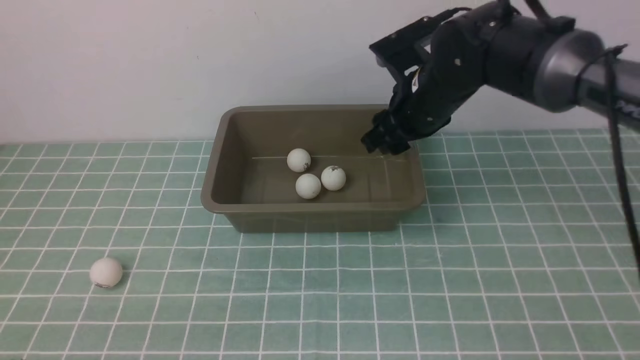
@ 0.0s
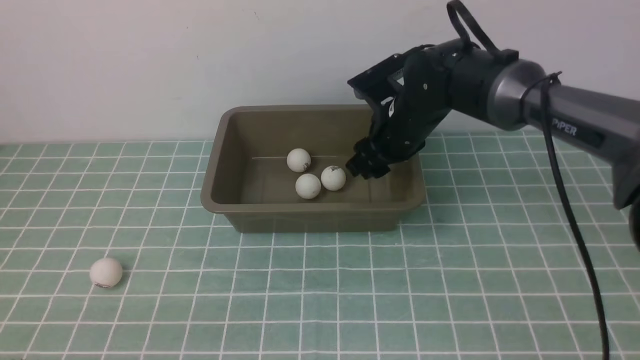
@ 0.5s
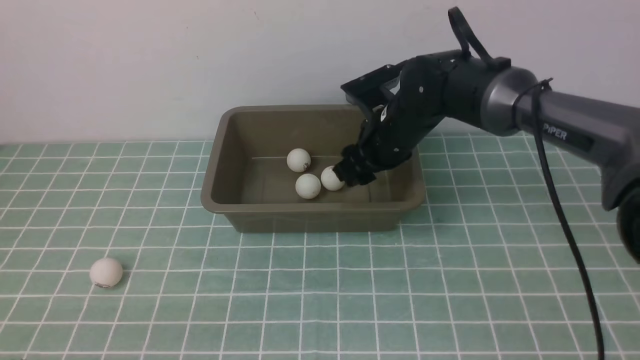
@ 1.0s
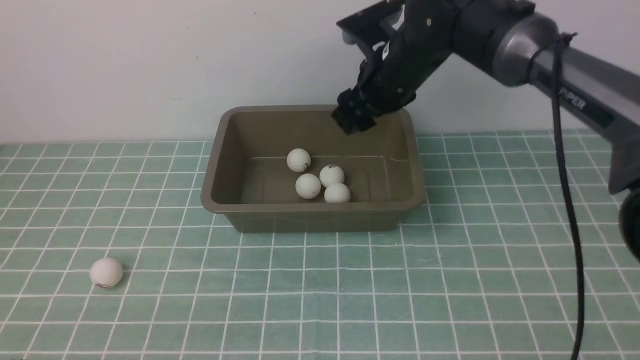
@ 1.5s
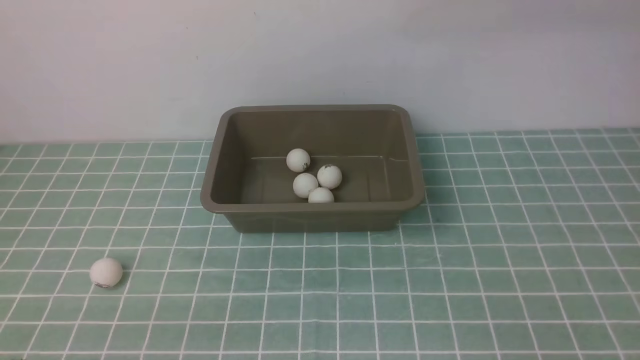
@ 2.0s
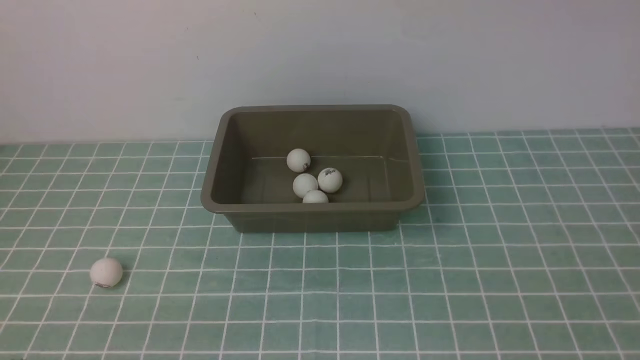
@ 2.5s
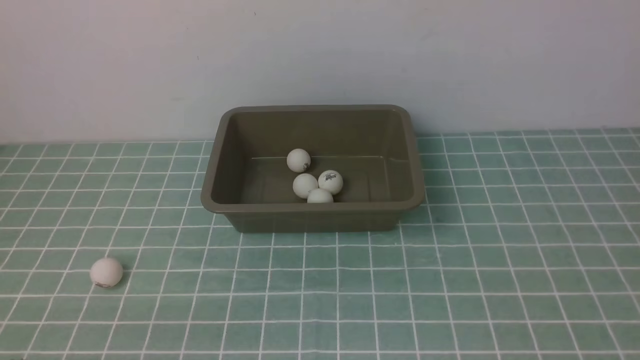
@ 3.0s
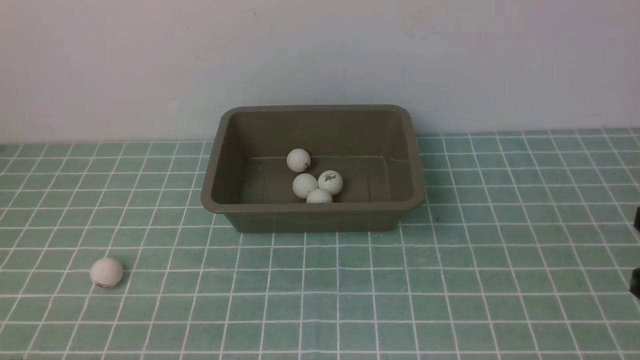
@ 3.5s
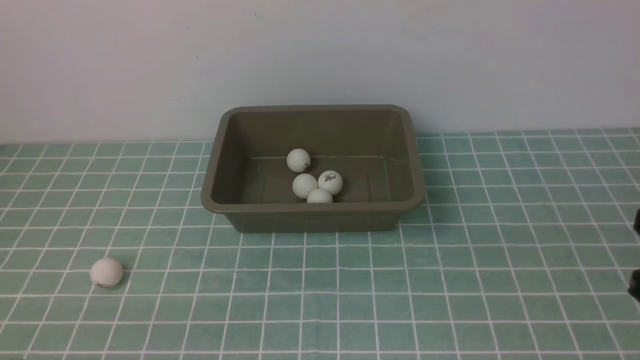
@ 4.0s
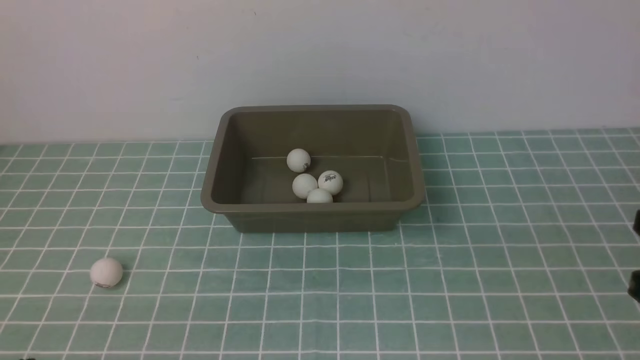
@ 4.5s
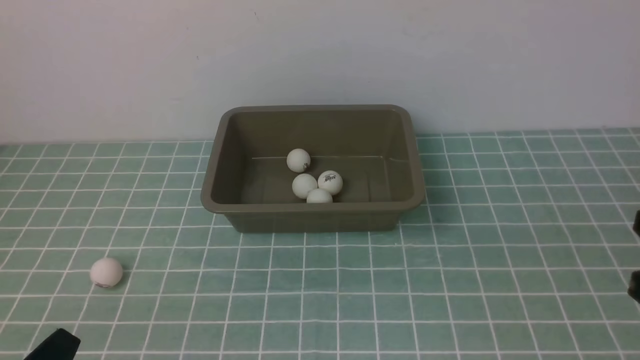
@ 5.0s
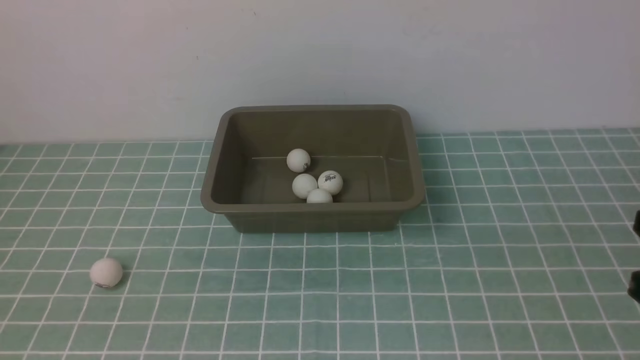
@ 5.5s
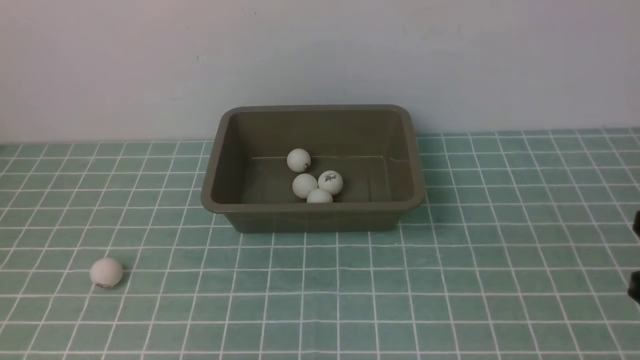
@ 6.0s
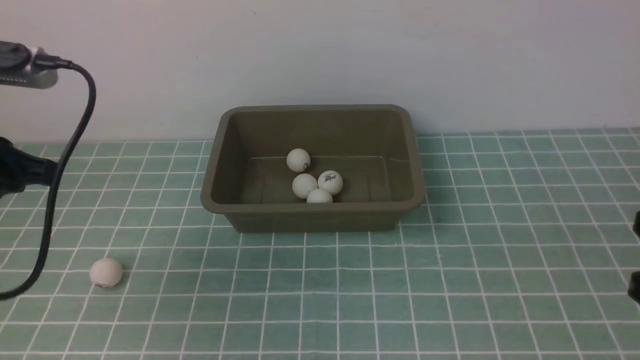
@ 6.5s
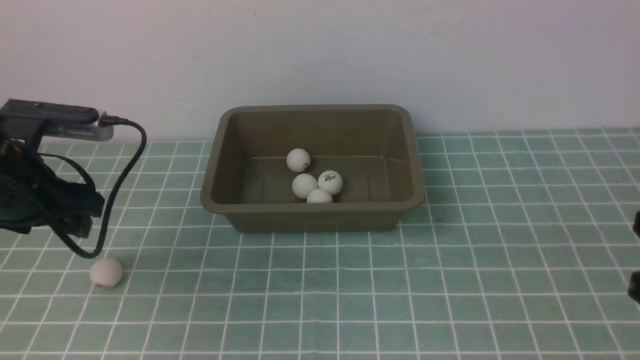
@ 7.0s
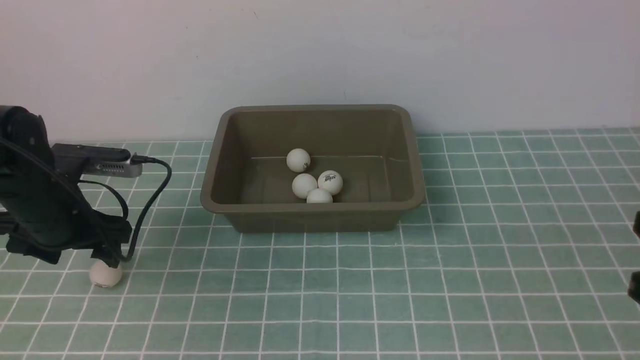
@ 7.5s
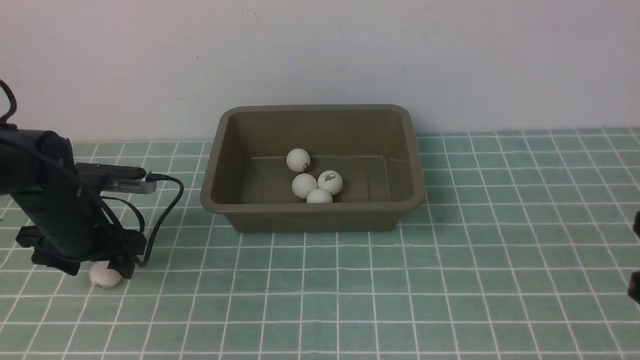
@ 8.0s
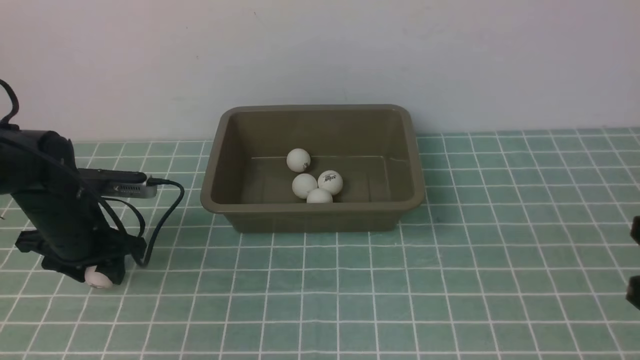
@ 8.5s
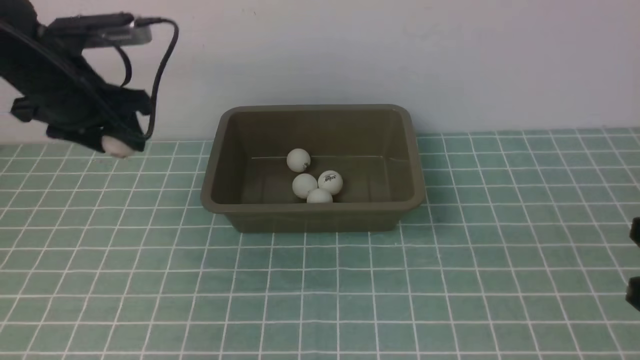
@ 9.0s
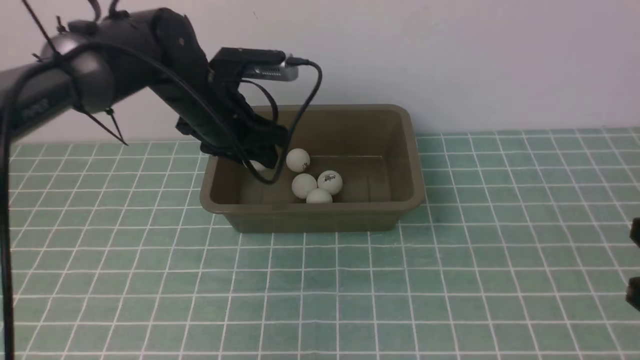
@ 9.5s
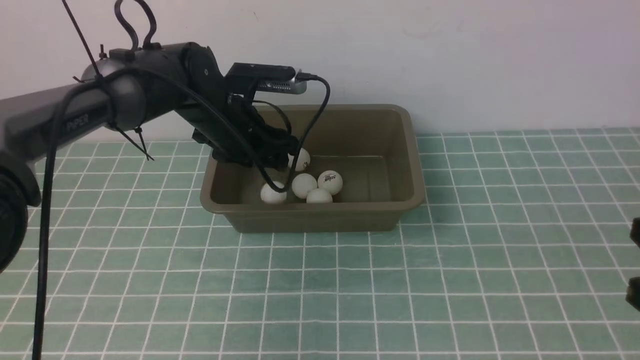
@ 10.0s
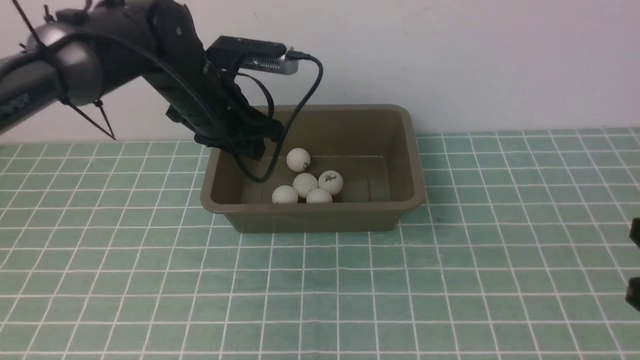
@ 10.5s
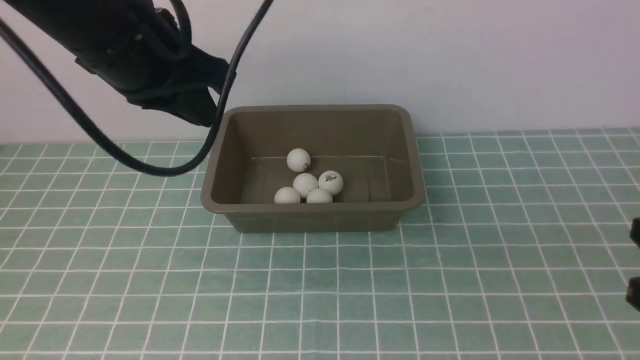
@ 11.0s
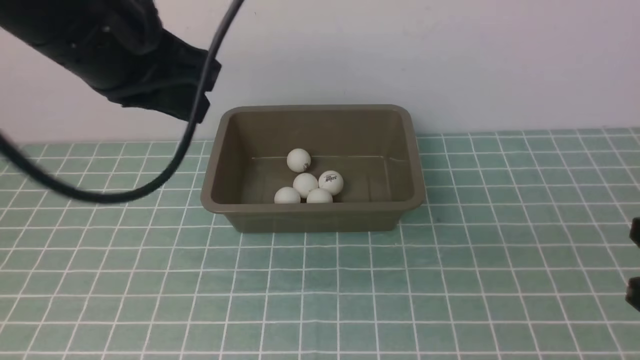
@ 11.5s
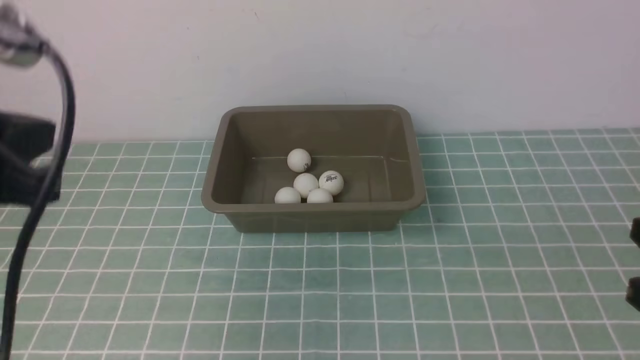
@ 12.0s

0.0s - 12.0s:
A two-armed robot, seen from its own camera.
Step, 0.0s - 1.5s: use the right arm to put the table tennis ball into the box.
Step, 2.0s - 8.5s: use the left arm to clamp the table tennis ball closest to it.
Step, 9.0s - 10.0s: use the left arm to put the table tennis ball into the box.
0.0s - 2.0s: The right gripper heads upward, backward and to the right, covering roughly 40 cm, and closes up.
6.0s - 8.0s: The left gripper goes approximately 25 cm downward and forward, and opens.
8.0s - 10.0s: The left gripper shifts some 20 cm to the right, forward and upward.
10.0s - 12.0s: The left gripper goes about 40 cm backward and to the left, and closes.

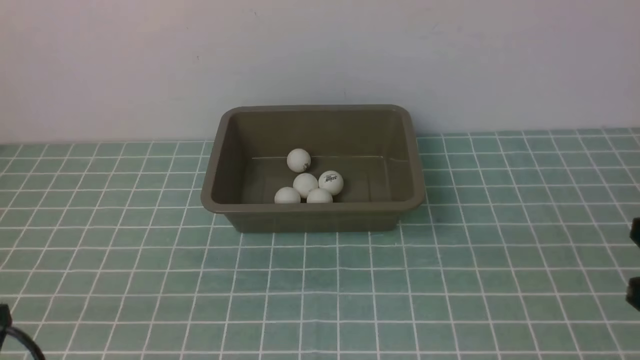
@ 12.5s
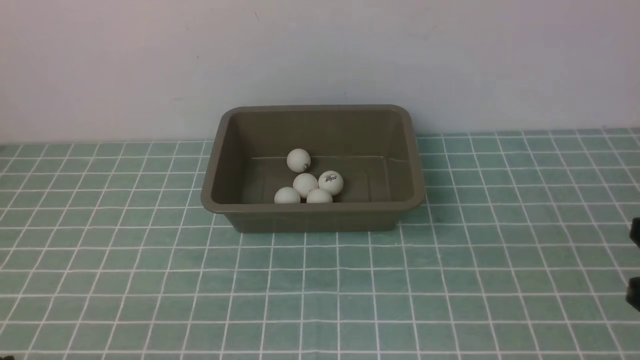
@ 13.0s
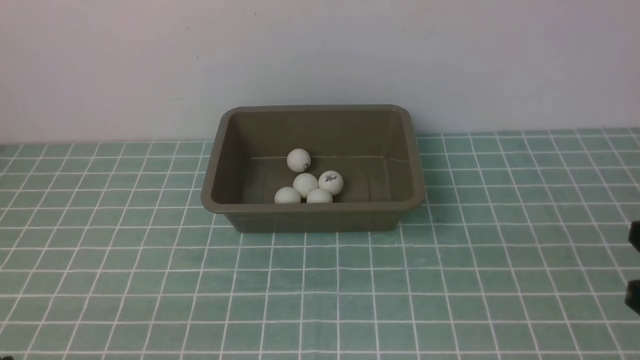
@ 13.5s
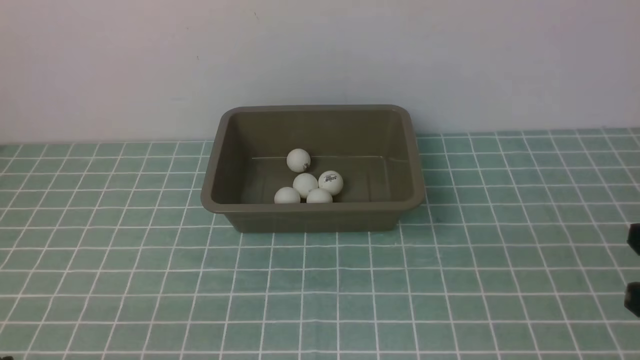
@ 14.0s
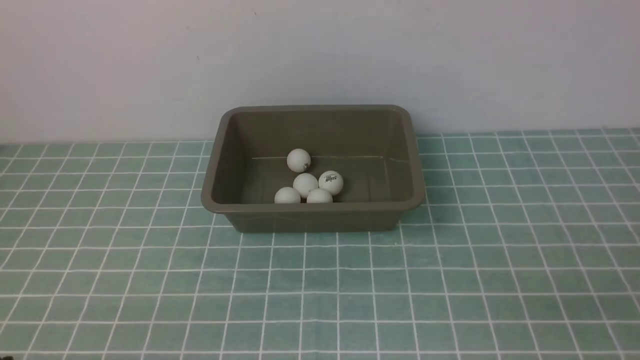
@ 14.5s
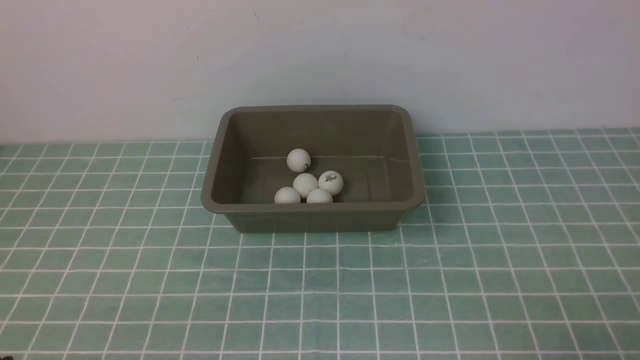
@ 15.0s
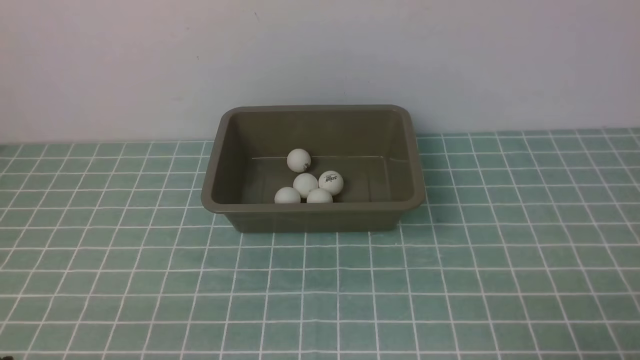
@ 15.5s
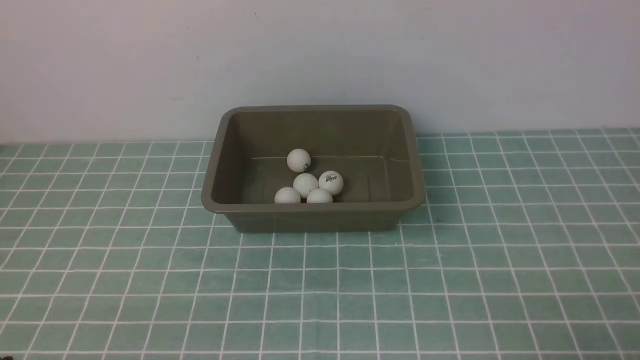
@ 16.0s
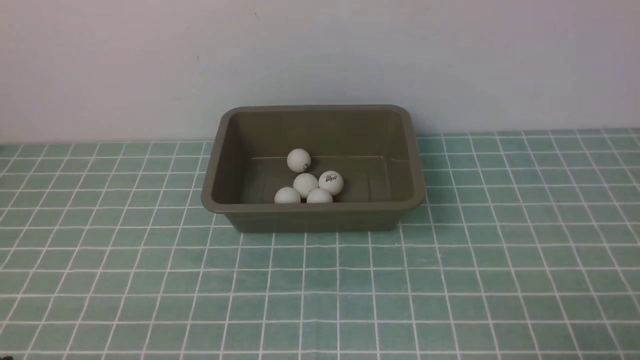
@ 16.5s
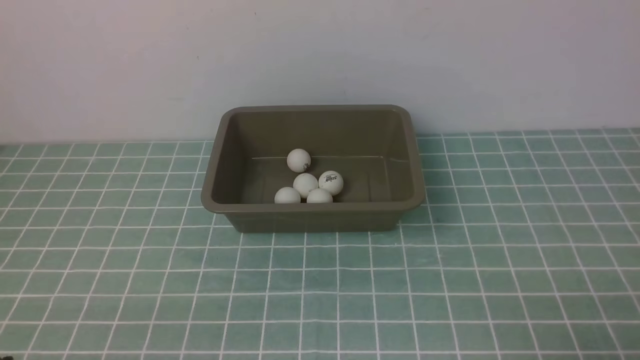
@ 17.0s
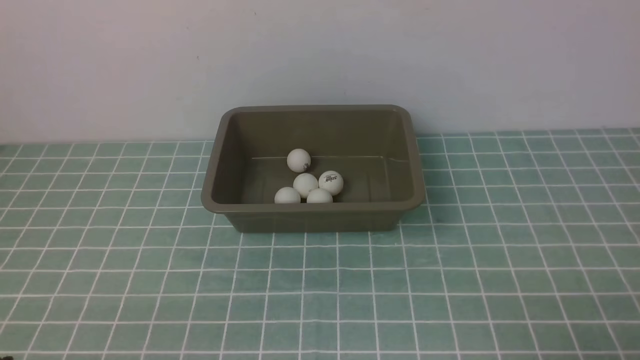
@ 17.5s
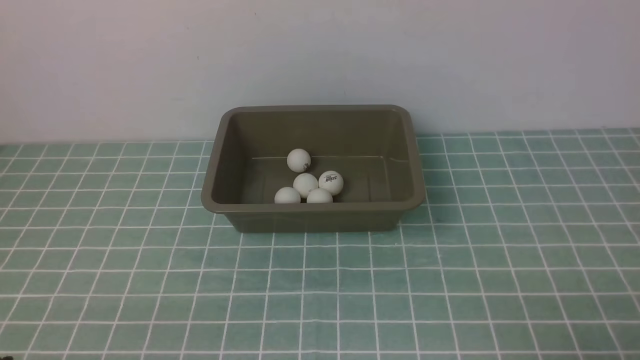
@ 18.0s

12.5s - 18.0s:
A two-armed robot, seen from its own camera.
14.5s - 18.0s: Both grippers stay about where they are.
